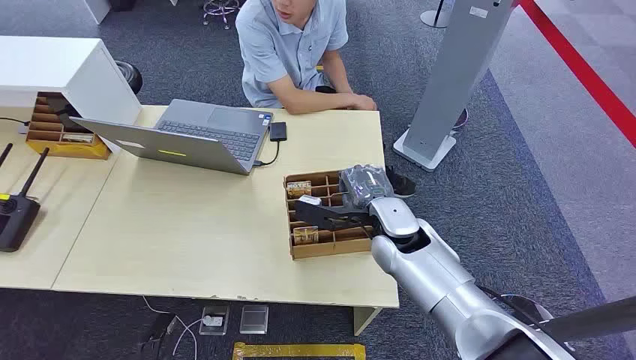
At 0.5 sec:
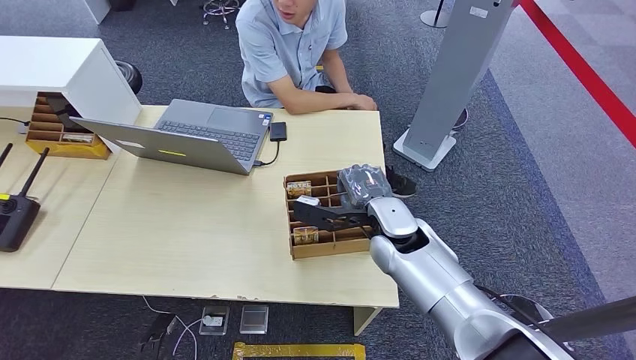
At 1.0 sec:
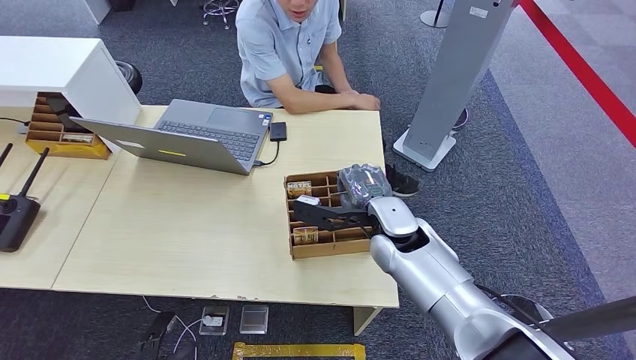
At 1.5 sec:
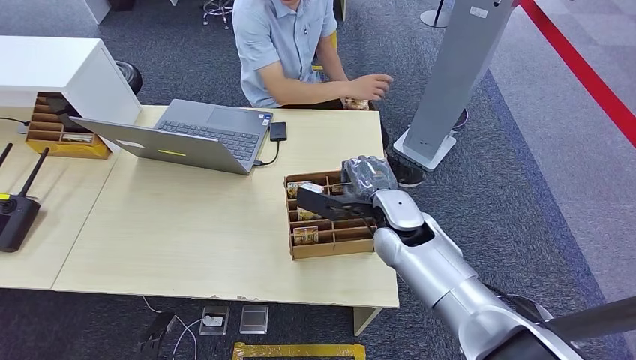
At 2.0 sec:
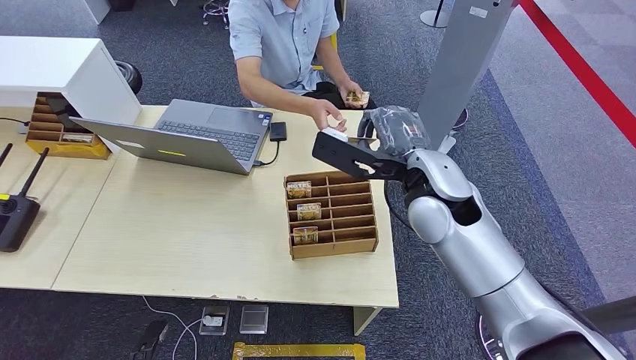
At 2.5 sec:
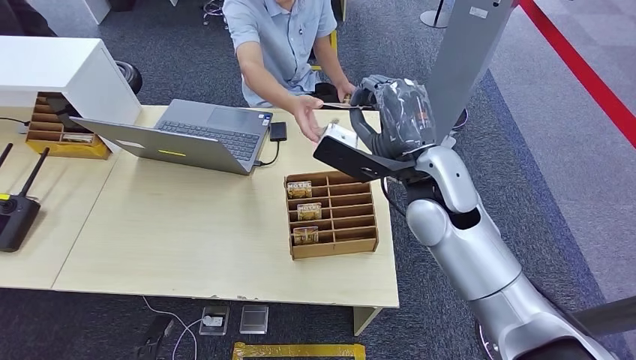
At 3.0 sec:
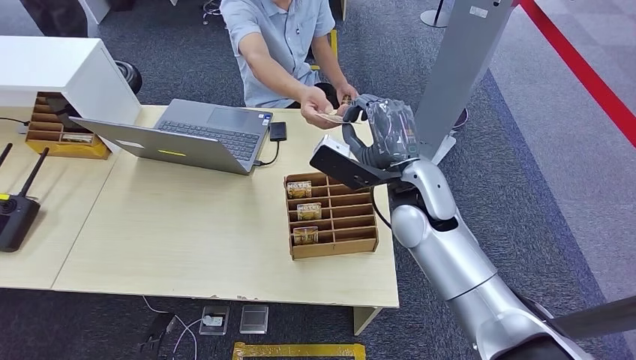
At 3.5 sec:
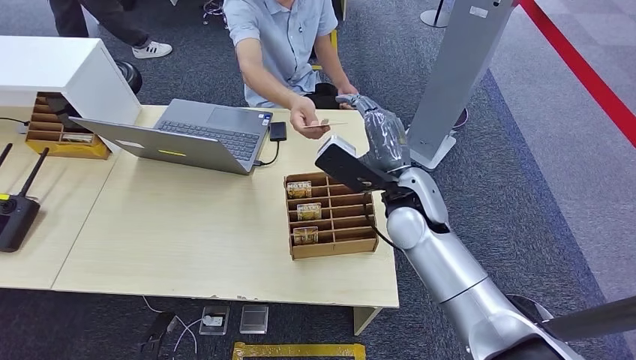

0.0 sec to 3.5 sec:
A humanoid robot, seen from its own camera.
Step, 0.0 sec to 2.0 sec: Pick up the key card from the card box.
Step, 3.0 sec to 3.5 sec: Hand the key card to the target.
2.0 sec to 3.5 sec: The right hand is displaced downward by some 5 cm.

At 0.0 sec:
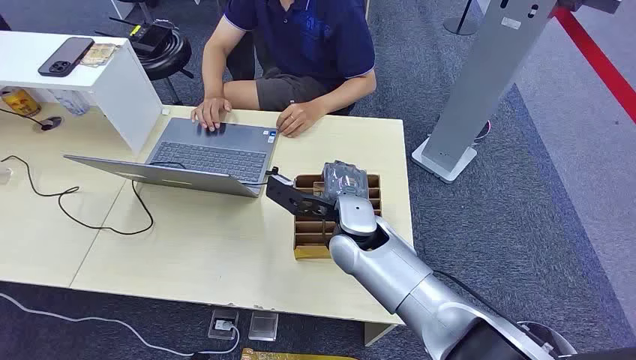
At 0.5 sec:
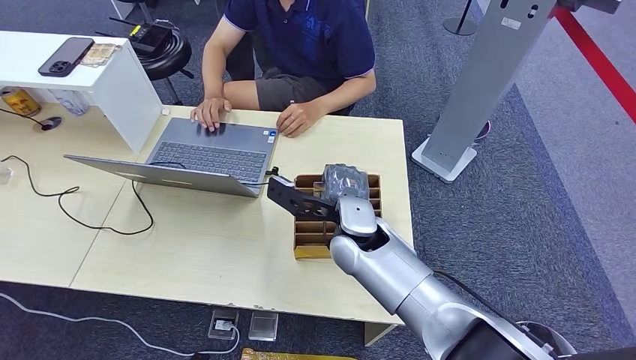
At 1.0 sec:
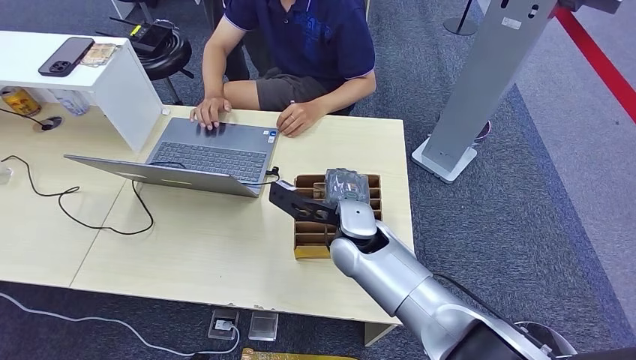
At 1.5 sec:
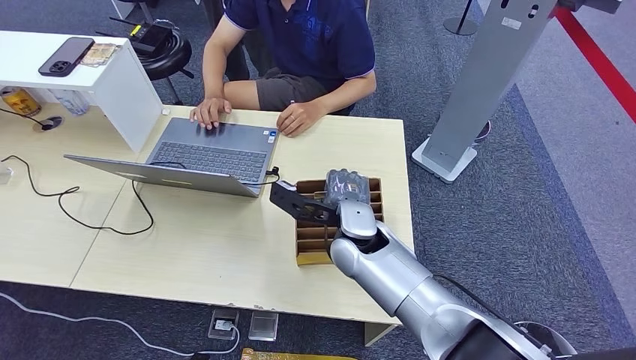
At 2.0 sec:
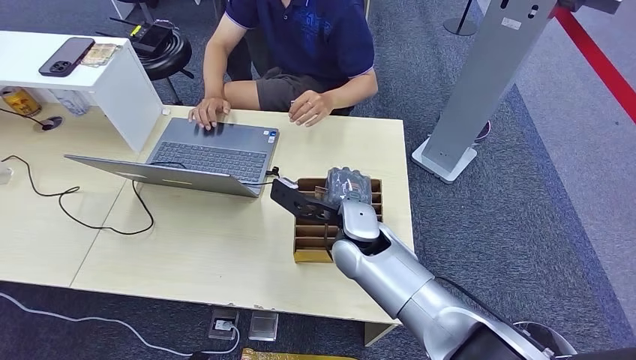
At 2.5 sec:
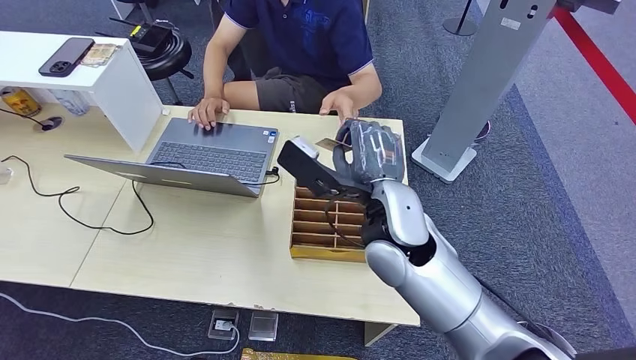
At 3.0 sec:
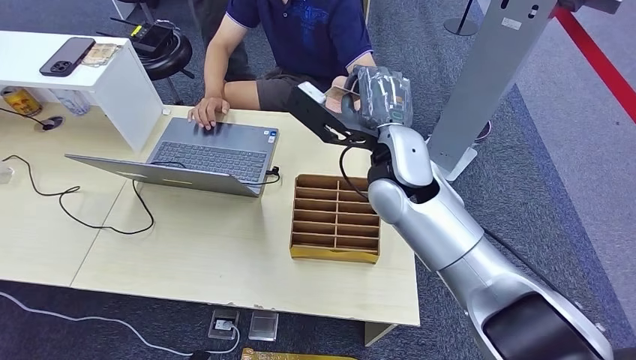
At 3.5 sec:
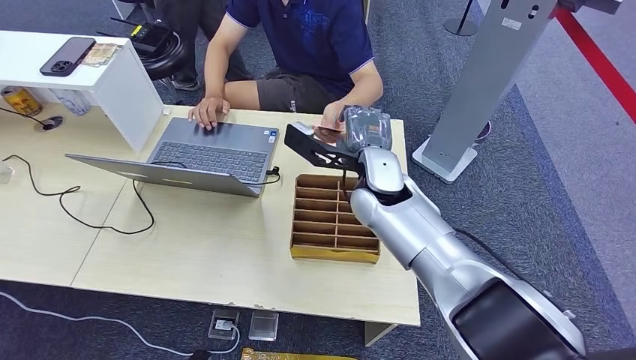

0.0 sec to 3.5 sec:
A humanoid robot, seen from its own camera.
Step, 0.0 sec to 2.0 sec: Pick up the key card from the card box.
Step, 2.5 sec to 3.5 sec: Hand the key card to the target.
2.0 sec to 3.5 sec: The right hand is displaced upward and forward by roughly 10 cm.
